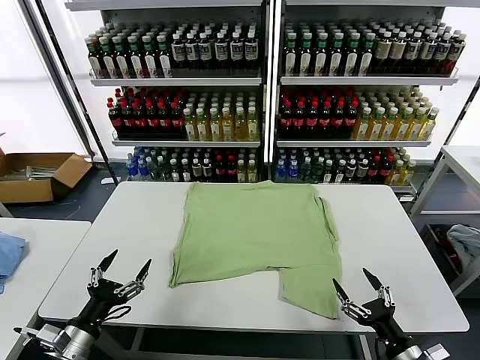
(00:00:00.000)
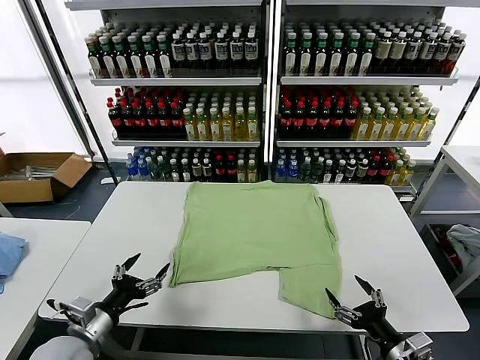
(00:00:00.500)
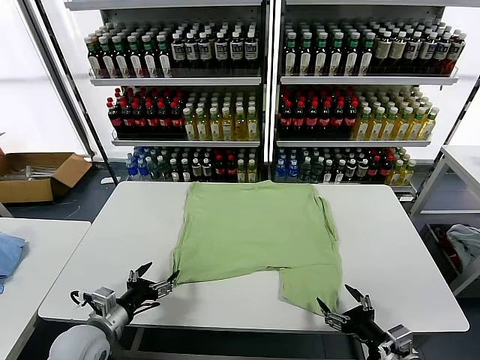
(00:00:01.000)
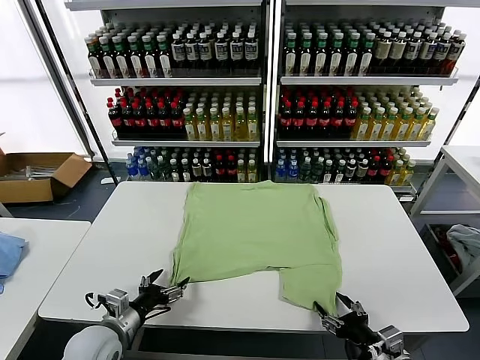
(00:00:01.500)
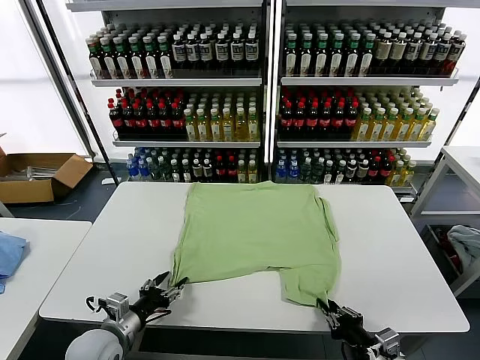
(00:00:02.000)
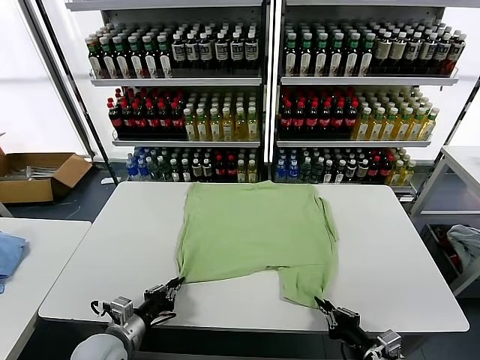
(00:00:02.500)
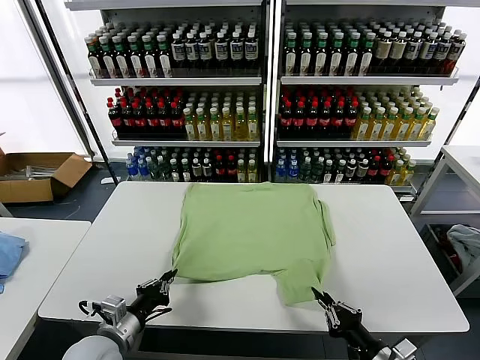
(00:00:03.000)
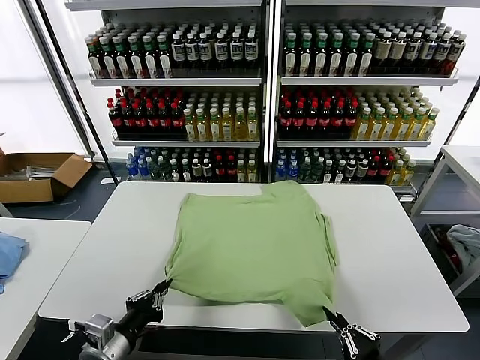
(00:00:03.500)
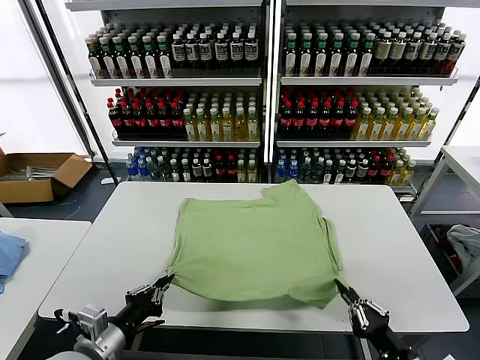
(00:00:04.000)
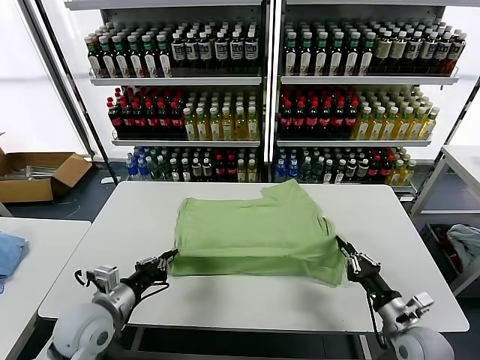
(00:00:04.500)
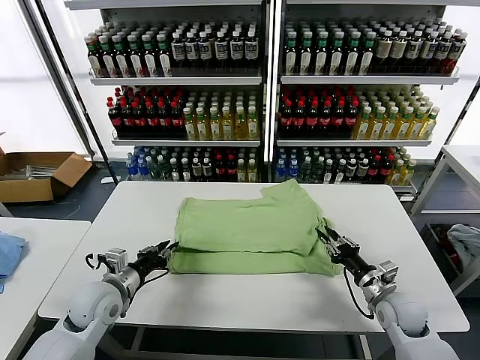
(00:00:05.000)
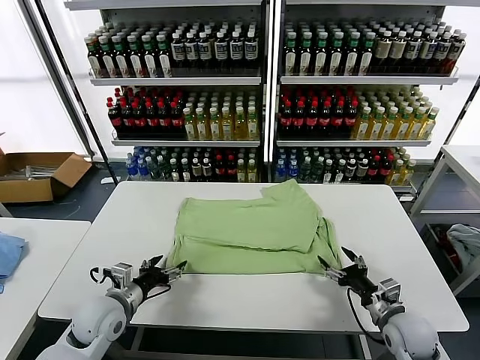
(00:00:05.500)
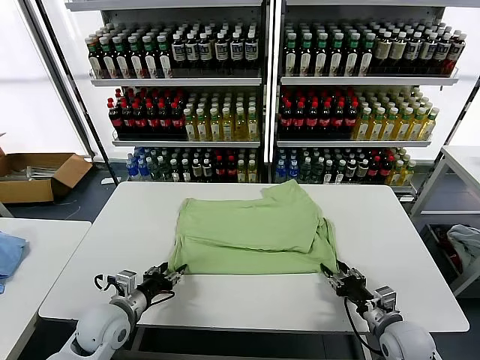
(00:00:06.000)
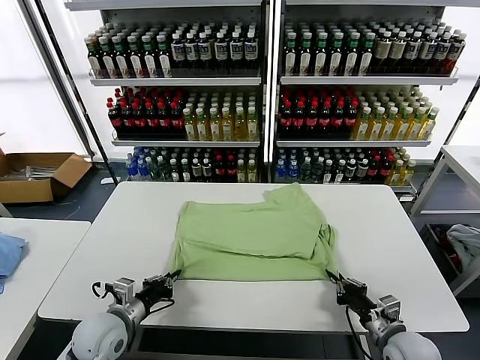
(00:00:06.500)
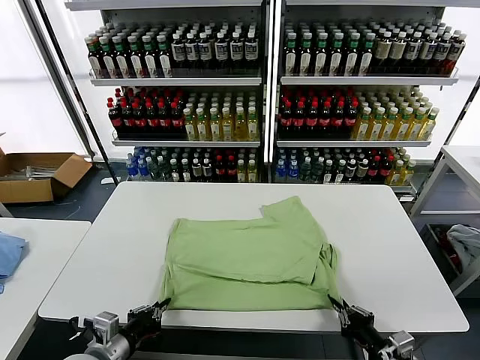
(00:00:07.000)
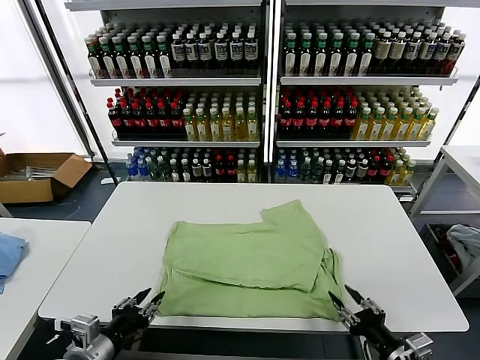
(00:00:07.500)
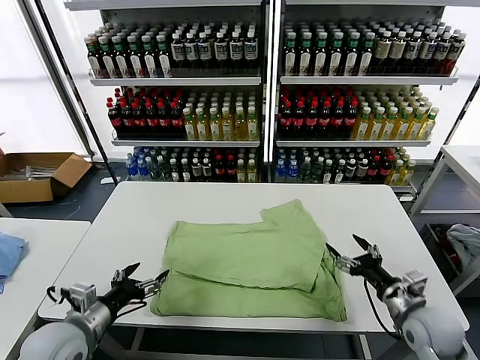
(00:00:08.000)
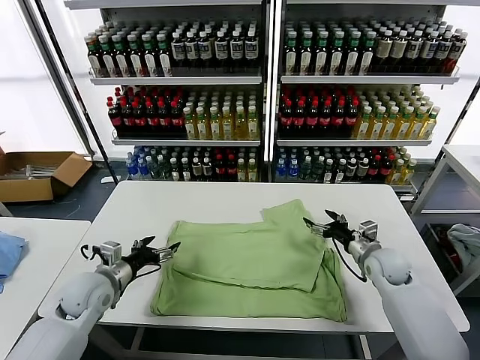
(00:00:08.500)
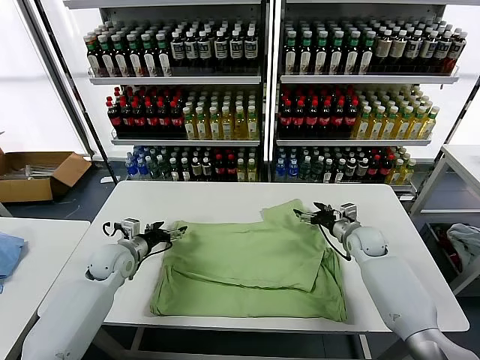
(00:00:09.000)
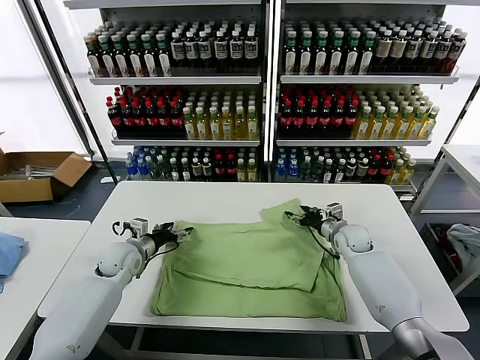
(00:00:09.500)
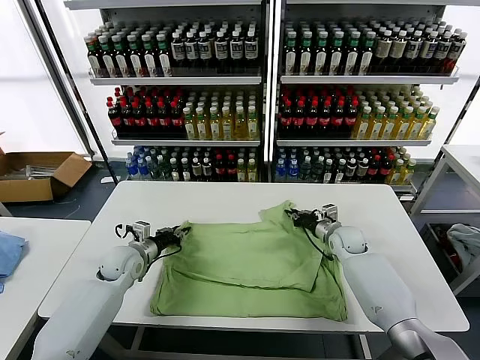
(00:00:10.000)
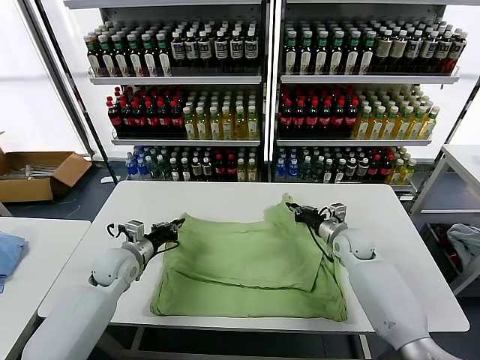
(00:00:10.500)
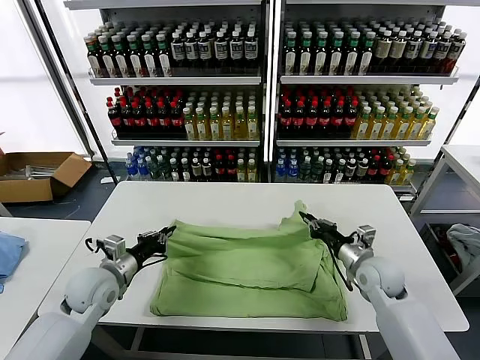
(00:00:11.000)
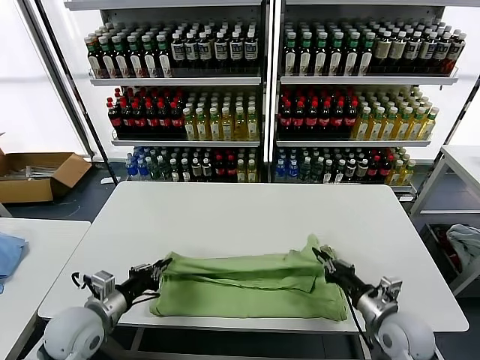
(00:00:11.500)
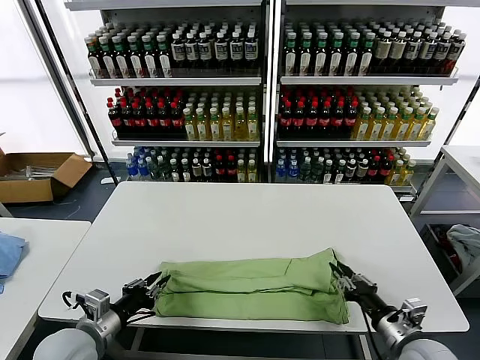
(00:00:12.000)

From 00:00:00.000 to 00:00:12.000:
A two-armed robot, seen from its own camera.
Task of the whole recording: fold and organize the clothes.
Step, from 00:00:00.000 to 00:00:02.000: use both grippers simultaneously to clamp the lower edge of the clothing fabric.
Step, from 00:00:03.000 to 00:00:05.000: use both grippers to drag the lower edge of the fabric forward and fold it over the upper edge.
Step, from 00:00:05.500 to 00:00:07.000: Drag the clothes downward with both gripper.
Step, from 00:00:07.500 to 00:00:10.000: use both grippers simultaneously to clamp the upper edge of the clothing fabric.
Step, from 00:00:10.500 to 00:00:12.000: use both grippers to drag the upper edge of the fabric backward and fold it over the lower edge.
From 00:00:02.000 to 00:00:04.000: The right gripper moves roughly 10 cm backward and comes back; the left gripper shifts approximately 10 cm upward and backward, and closes its fingers.
From 00:00:04.000 to 00:00:06.000: The left gripper moves forward and downward, approximately 15 cm, and opens its fingers, while the right gripper travels forward by some 10 cm, and opens its fingers.
From 00:00:06.000 to 00:00:08.000: The left gripper moves upward and backward, about 10 cm, and opens its fingers, while the right gripper is displaced upward by about 5 cm, goes backward and returns, approximately 10 cm each way, and opens its fingers.
From 00:00:08.000 to 00:00:10.000: Both grippers travel together forward, approximately 20 cm. The left gripper closes its fingers. The right gripper closes its fingers.
From 00:00:10.000 to 00:00:12.000: The two grippers go about 25 cm backward.

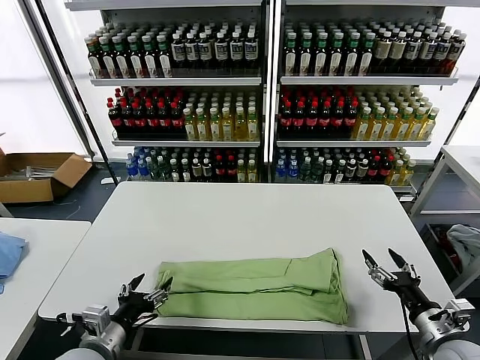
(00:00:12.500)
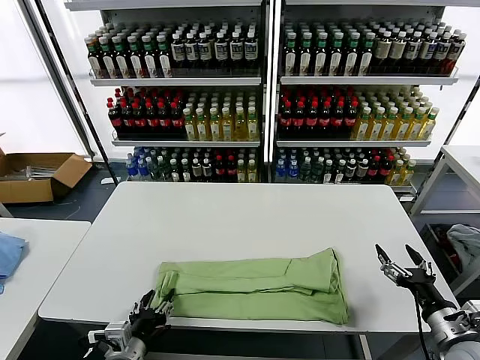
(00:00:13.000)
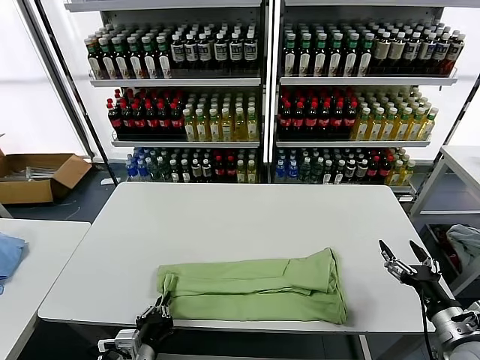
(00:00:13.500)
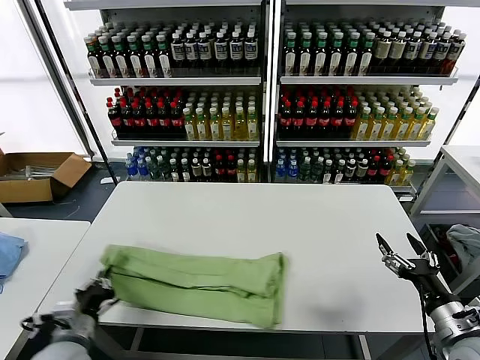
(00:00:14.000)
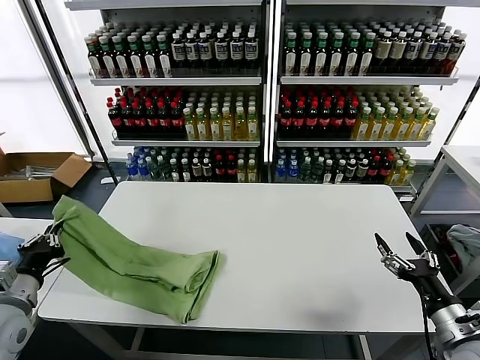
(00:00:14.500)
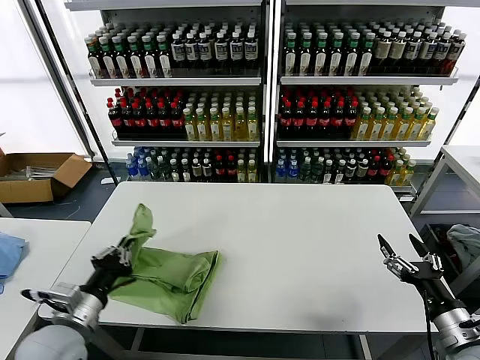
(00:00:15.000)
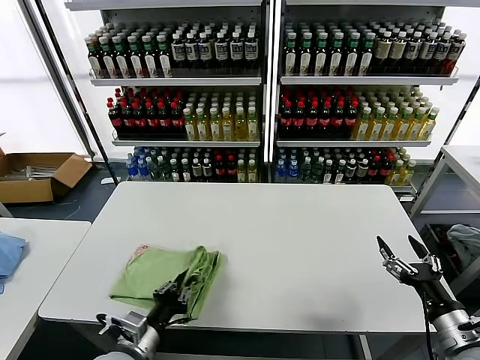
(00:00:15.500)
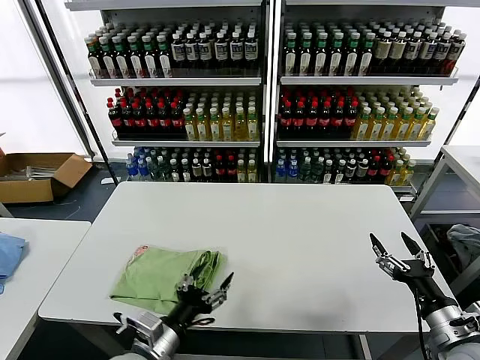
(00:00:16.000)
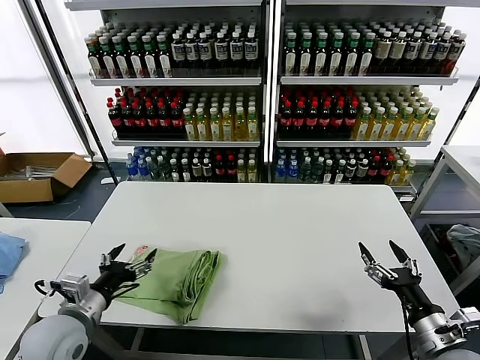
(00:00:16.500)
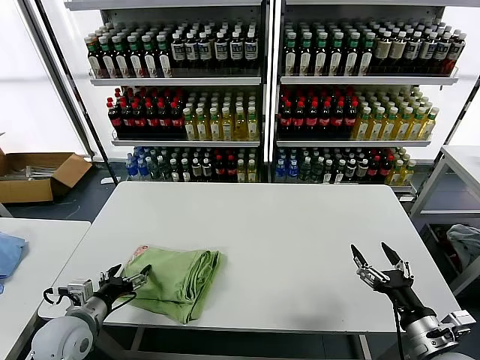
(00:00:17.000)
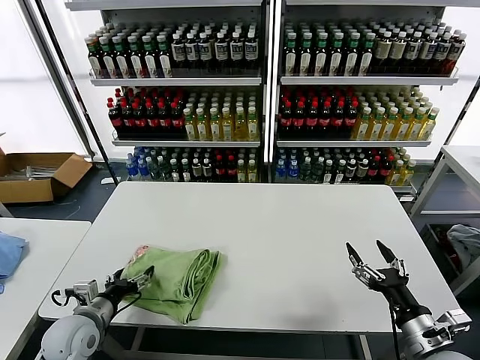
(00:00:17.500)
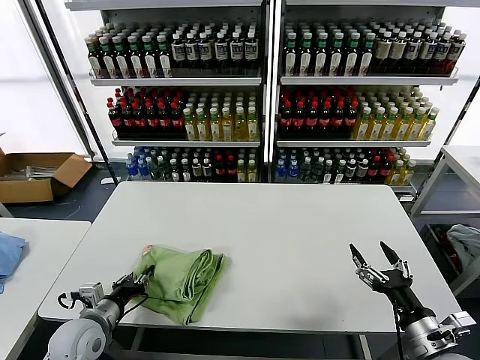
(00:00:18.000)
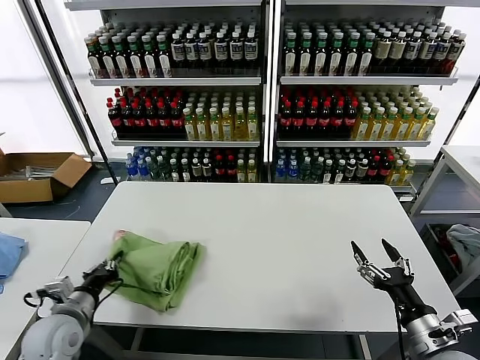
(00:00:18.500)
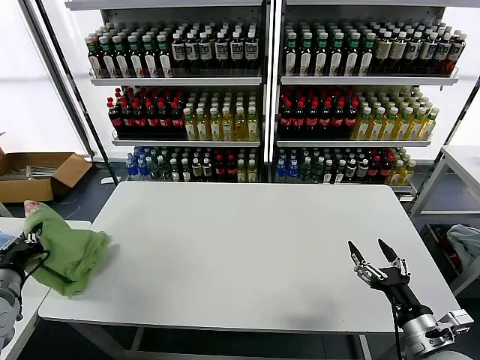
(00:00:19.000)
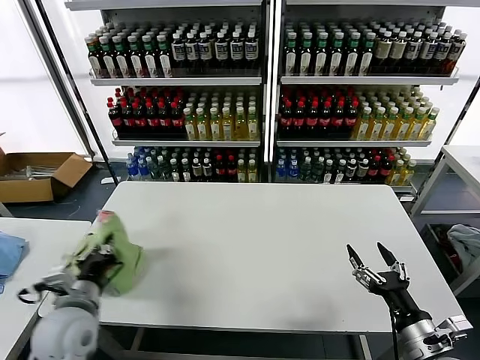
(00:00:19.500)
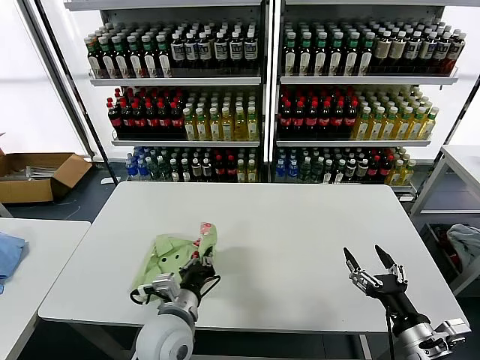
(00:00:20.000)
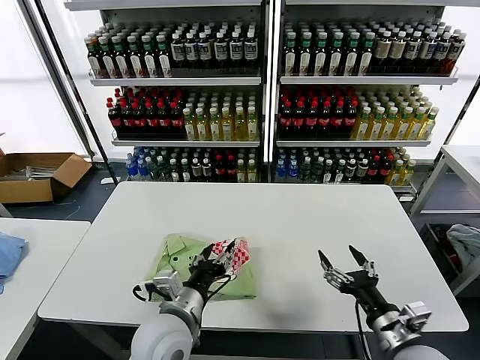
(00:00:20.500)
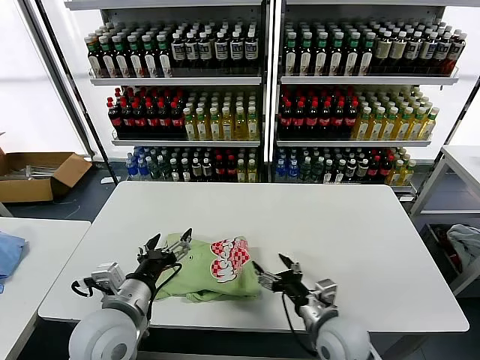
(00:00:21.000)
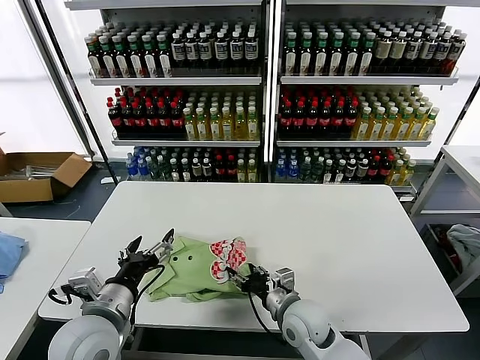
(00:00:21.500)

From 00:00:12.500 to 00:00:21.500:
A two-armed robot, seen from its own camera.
Task of the whole recording: fold and organize the clothes.
Step, from 00:00:12.500 to 00:00:13.500: use the left gripper to clamp the left edge of the fabric.
Step, from 00:00:14.000 to 00:00:15.500: use the left gripper to drag the left edge of the fabric to the left and folds it over the right edge.
Step, from 00:00:16.000 to 00:00:20.500: Flip the folded clothes over with left gripper.
From 00:00:12.500 to 00:00:14.500: The left gripper travels to the left and upward by approximately 15 cm, and closes up.
From 00:00:14.500 to 00:00:17.000: The left gripper is displaced downward by roughly 10 cm, travels to the right and back again, roughly 25 cm each way, and opens up.
From 00:00:17.000 to 00:00:19.500: The left gripper heads upward, covering about 5 cm, moves some 10 cm to the left and comes back, and closes its fingers.
From 00:00:19.500 to 00:00:21.500: The left gripper is displaced to the right by approximately 10 cm, and opens; the right gripper is displaced to the left and forward by about 25 cm.

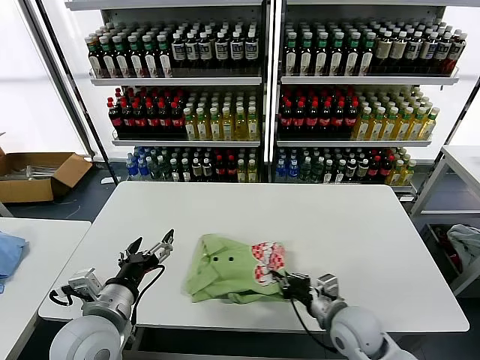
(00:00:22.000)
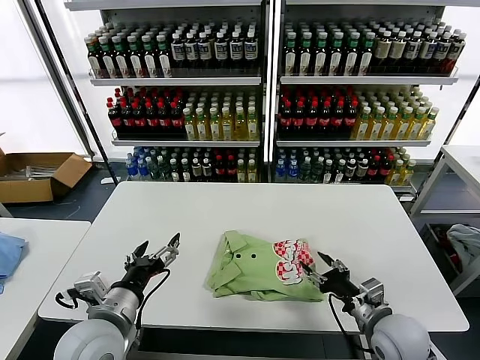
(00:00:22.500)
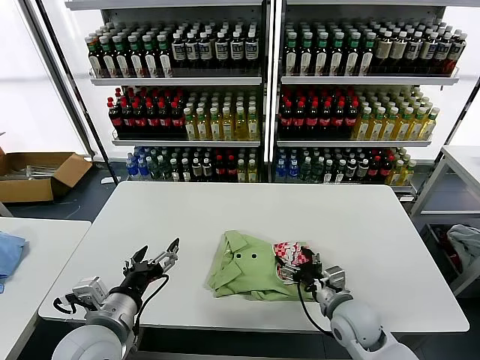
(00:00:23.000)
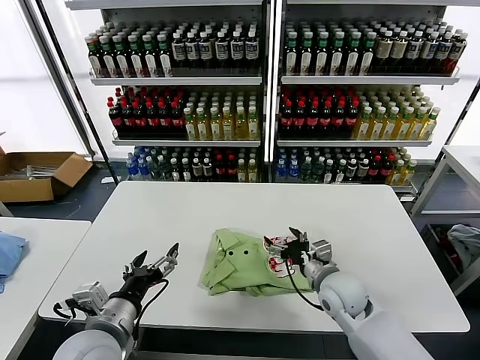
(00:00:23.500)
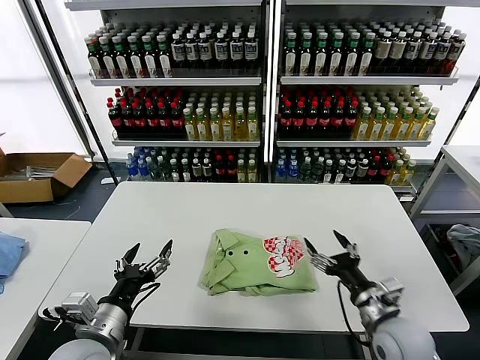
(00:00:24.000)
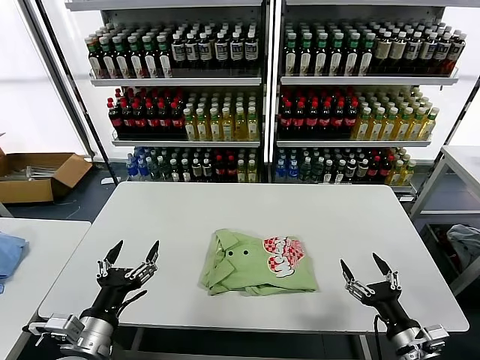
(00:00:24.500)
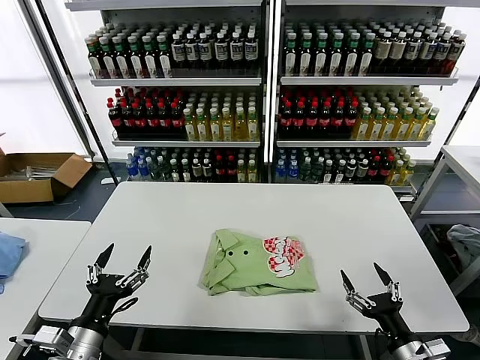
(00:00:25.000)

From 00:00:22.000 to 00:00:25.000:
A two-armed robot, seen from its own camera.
Task of the whole recording: fold and organize the clothes.
Step, from 00:00:22.000 to 00:00:23.500: Drag the clothes to the center of the table.
From 00:00:22.000 to 00:00:23.500: The right gripper shifts roughly 5 cm forward, and opens up.
From 00:00:23.500 to 00:00:25.000: The right gripper shifts about 25 cm backward and to the right. Meanwhile the left gripper moves to the left, some 5 cm.
